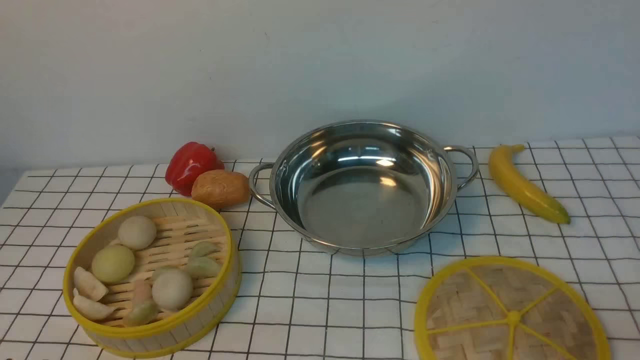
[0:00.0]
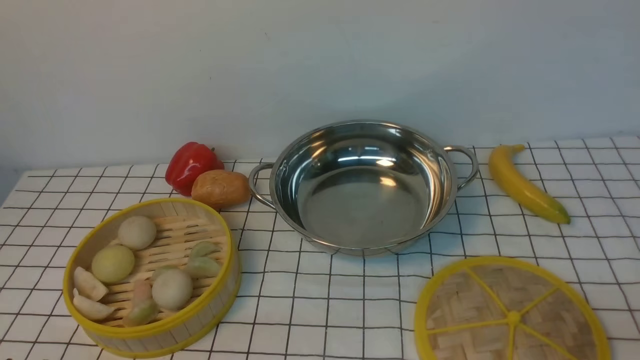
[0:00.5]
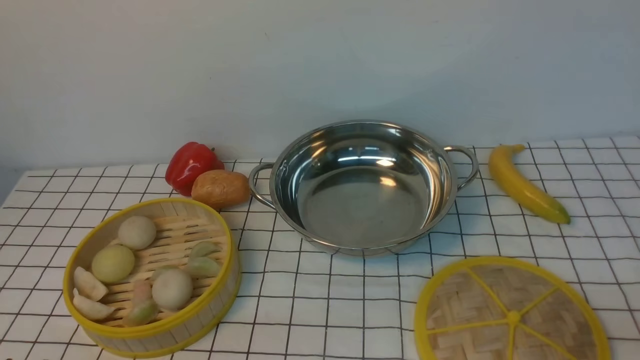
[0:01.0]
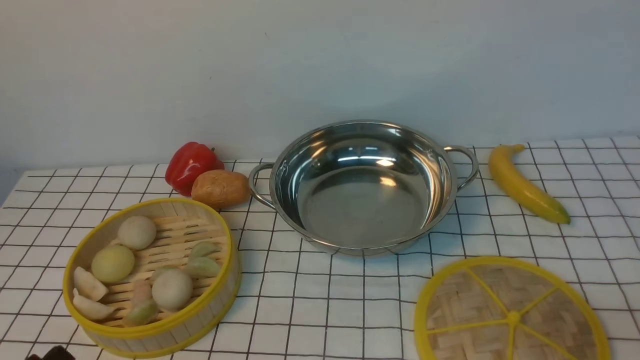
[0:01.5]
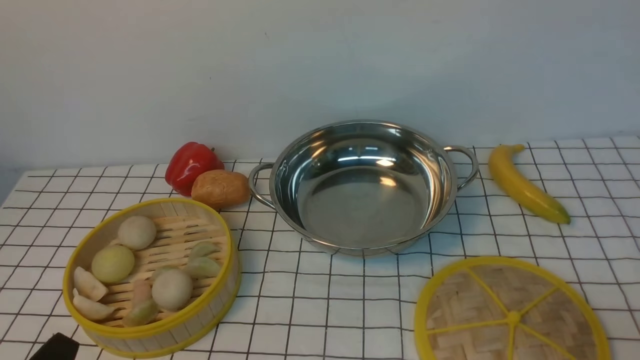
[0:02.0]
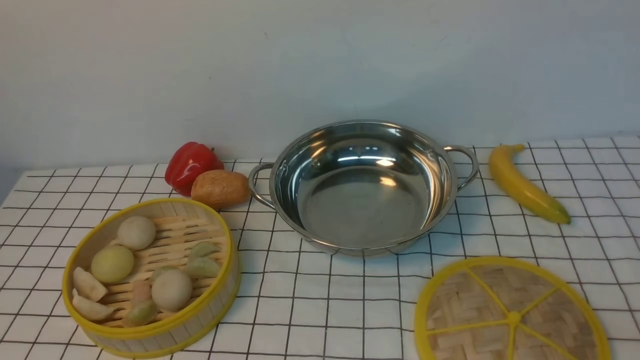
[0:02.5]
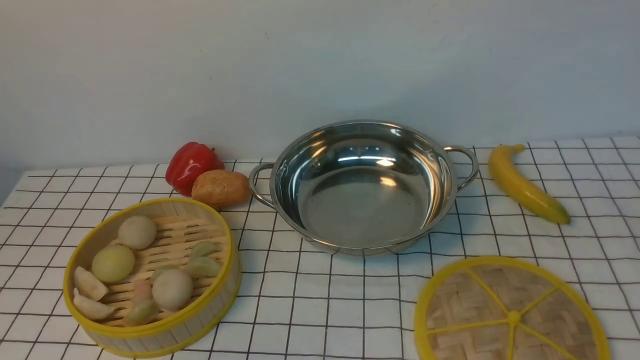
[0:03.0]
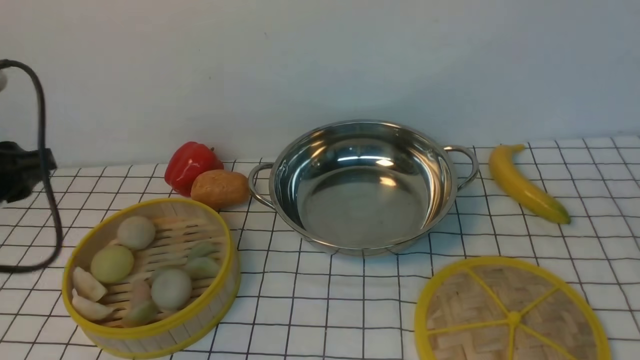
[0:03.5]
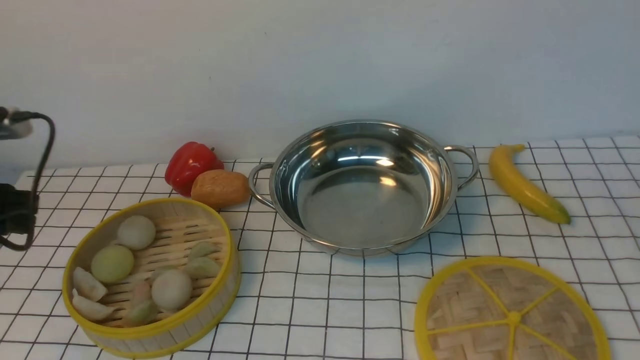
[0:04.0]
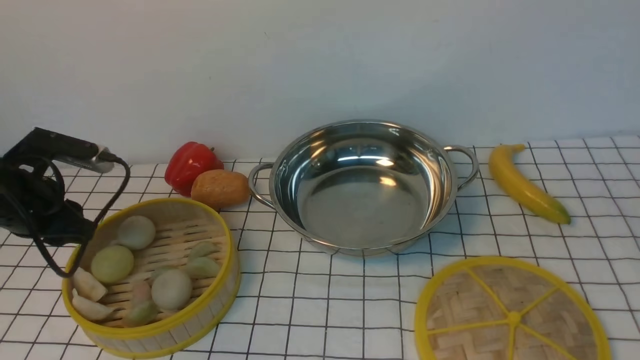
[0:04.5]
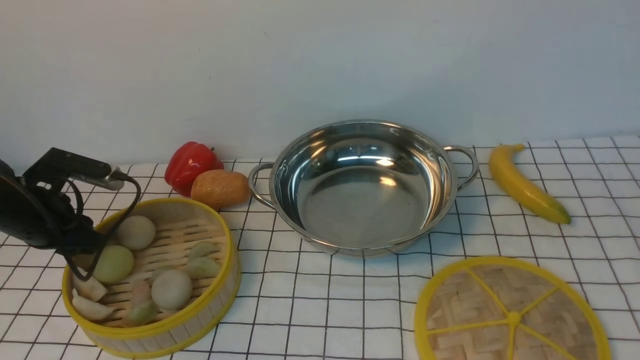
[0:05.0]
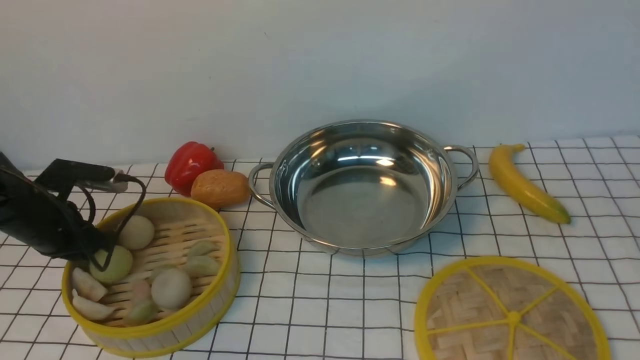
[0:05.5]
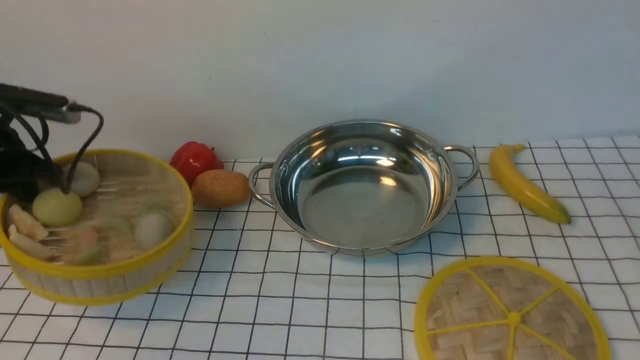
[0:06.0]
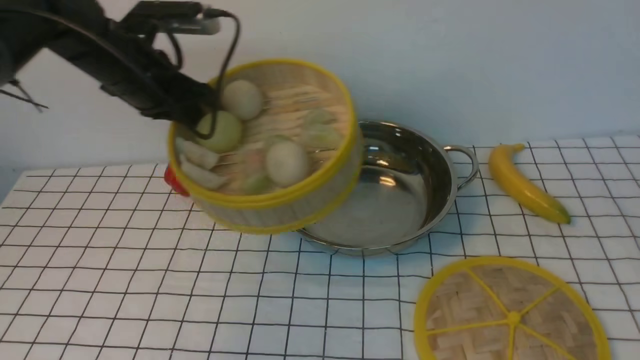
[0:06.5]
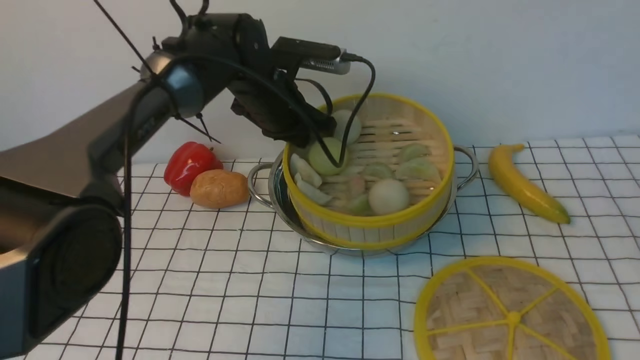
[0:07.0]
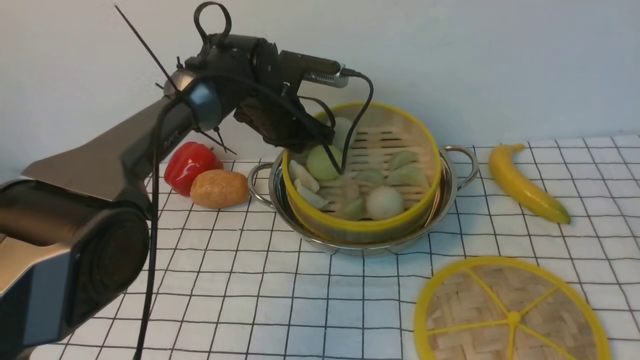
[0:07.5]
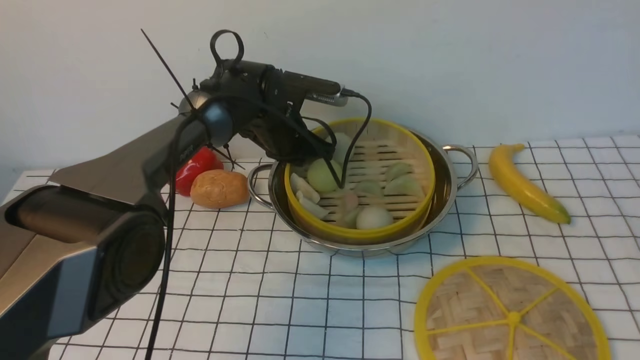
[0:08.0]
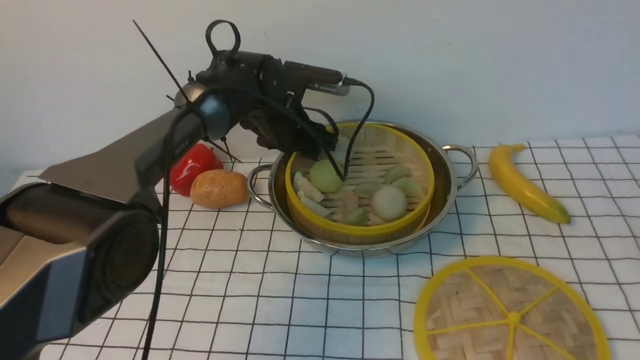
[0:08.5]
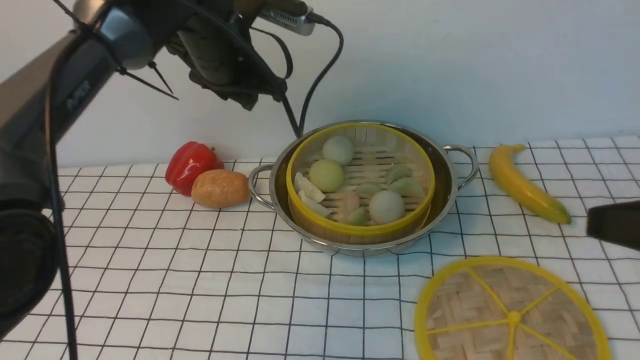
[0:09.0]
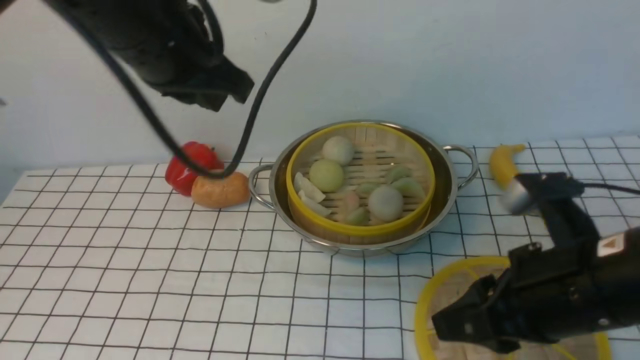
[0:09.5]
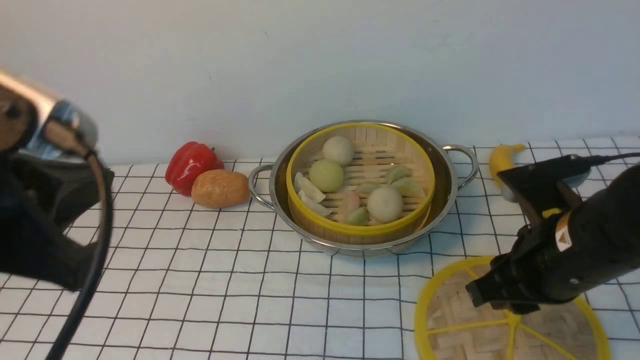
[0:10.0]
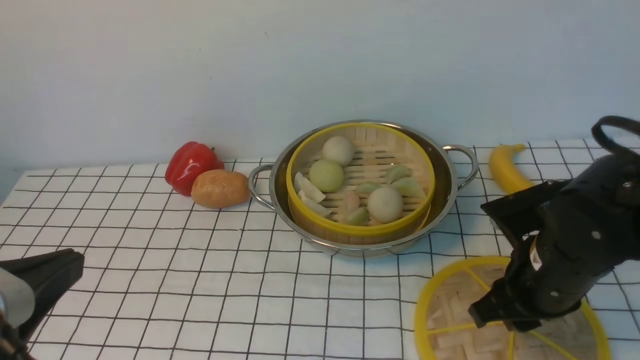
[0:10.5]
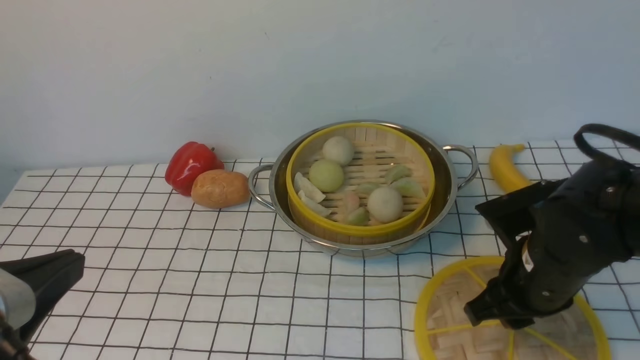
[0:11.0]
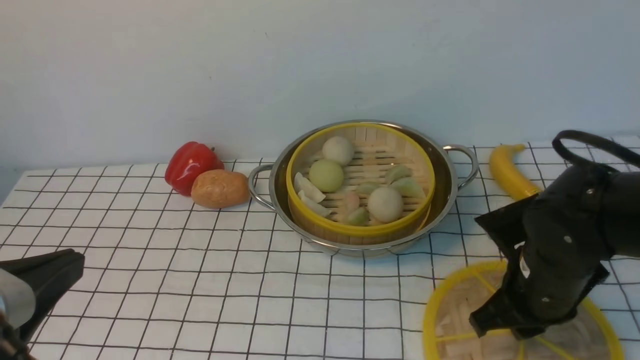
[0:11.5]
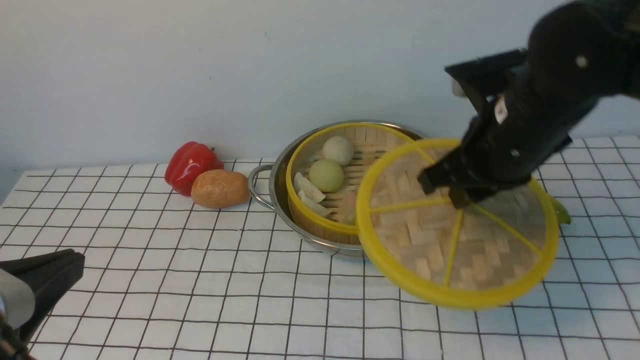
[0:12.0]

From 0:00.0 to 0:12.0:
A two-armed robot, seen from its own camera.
Task of the whole recording: place the steamer in the pot on the white tablecloth, and put the lid on the steamer.
Step, from 0:00.0 to 0:05.5: use the left arm to lift the steamer closest to it.
Step, from 0:06.0 to 0:08.5: use the left arm to put the steamer into the iron steamer pot in the middle.
Step, from 0:09.0 to 0:11.5: use the right arm to lift the lid of the steamer.
From 0:02.0 to 0:04.0: The left gripper shifts roughly 30 cm forward and to the left.
From 0:04.0 to 0:06.0: The left gripper moves forward, roughly 10 cm, goes downward and returns, roughly 10 cm each way, and closes its fingers.
From 0:06.0 to 0:08.0: The left gripper heads to the right, covering some 30 cm.
From 0:08.0 to 0:10.0: The left gripper moves backward and upward, approximately 40 cm, and opens, then closes once more; the right gripper shifts about 20 cm forward, downward and to the left.
From 0:10.0 to 0:12.0: The right gripper travels forward and upward by some 10 cm, while the left gripper moves backward, approximately 5 cm.

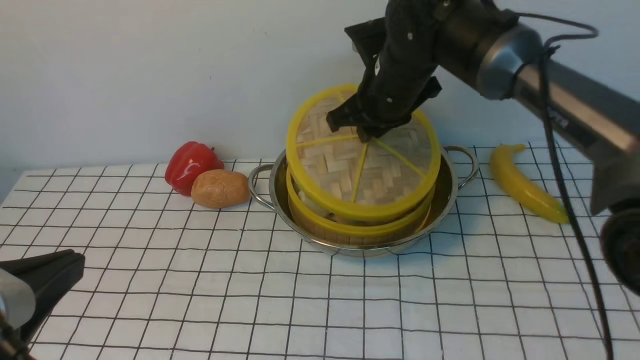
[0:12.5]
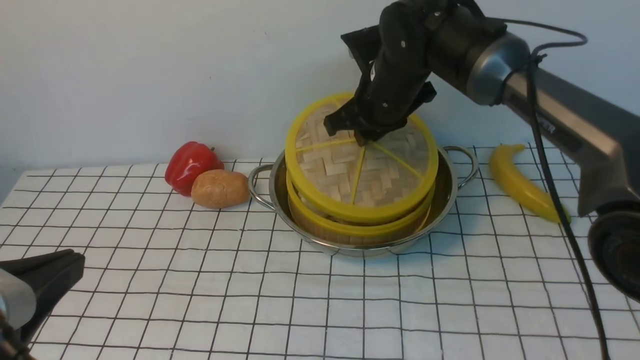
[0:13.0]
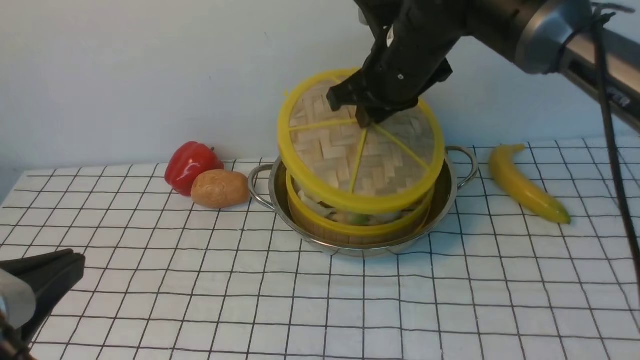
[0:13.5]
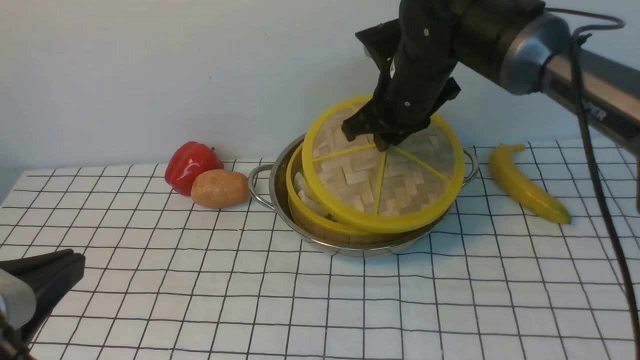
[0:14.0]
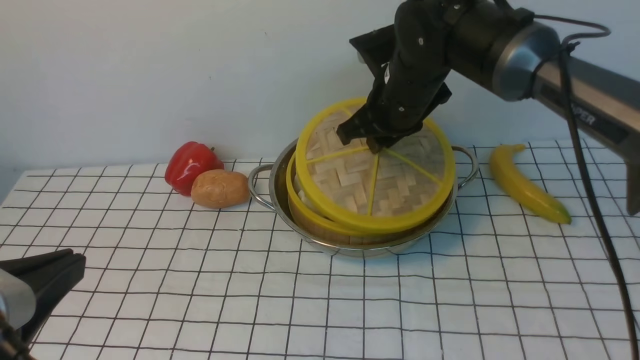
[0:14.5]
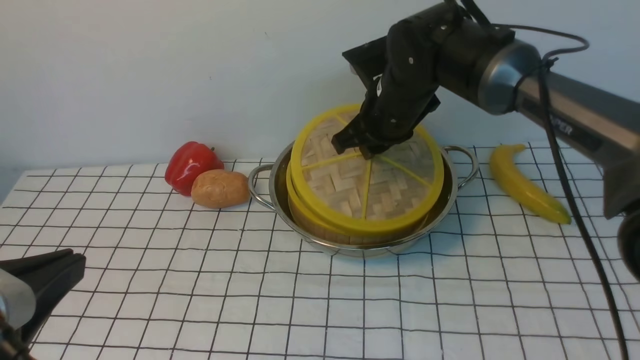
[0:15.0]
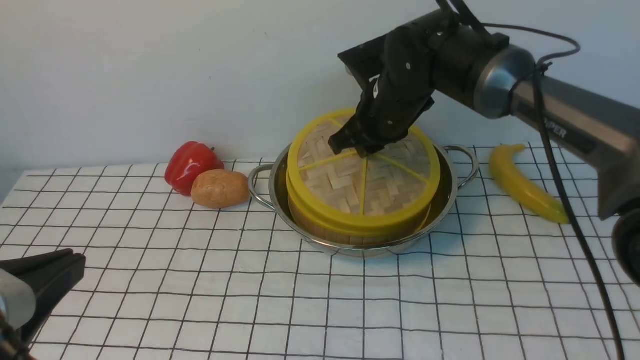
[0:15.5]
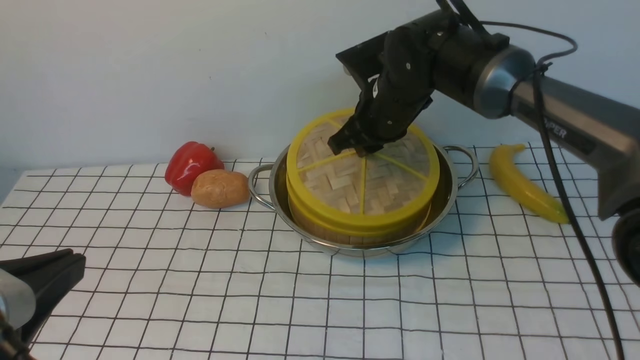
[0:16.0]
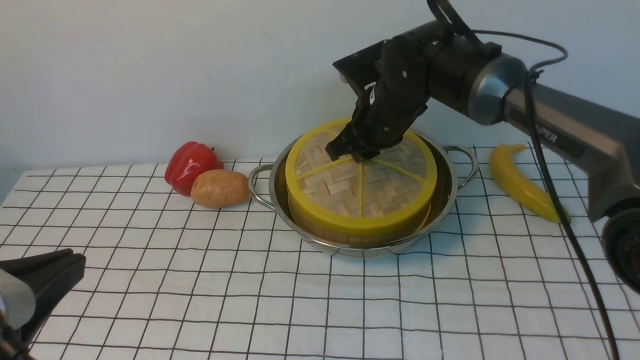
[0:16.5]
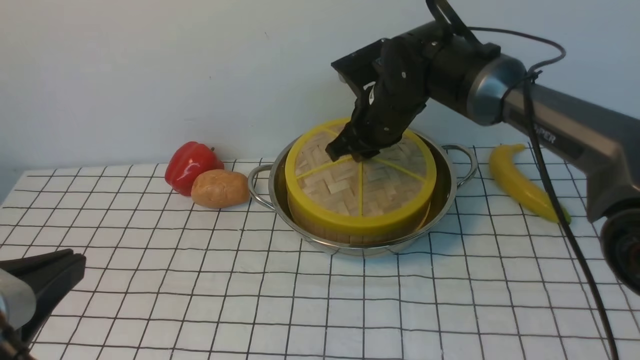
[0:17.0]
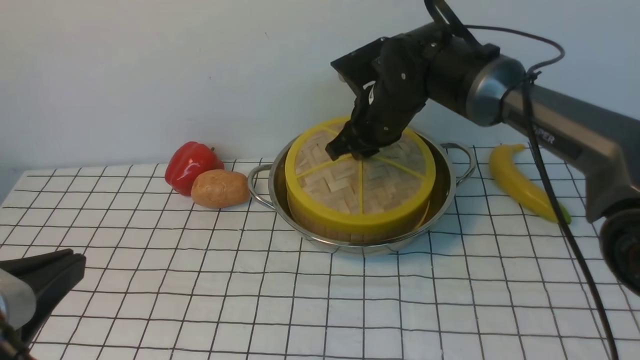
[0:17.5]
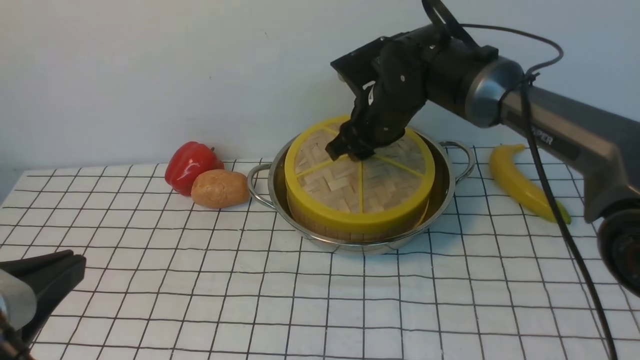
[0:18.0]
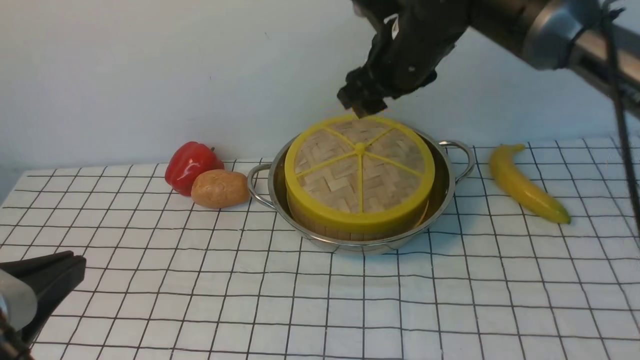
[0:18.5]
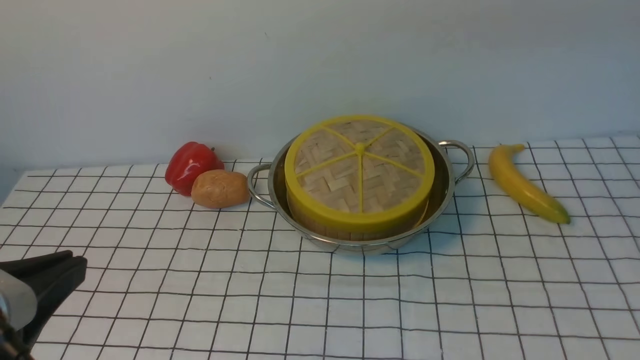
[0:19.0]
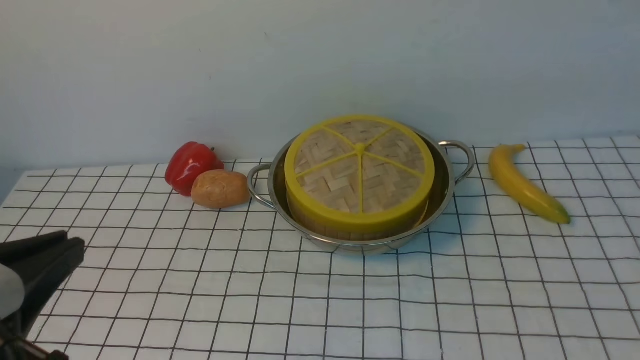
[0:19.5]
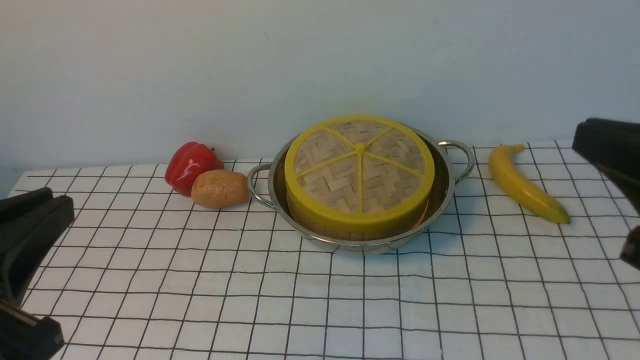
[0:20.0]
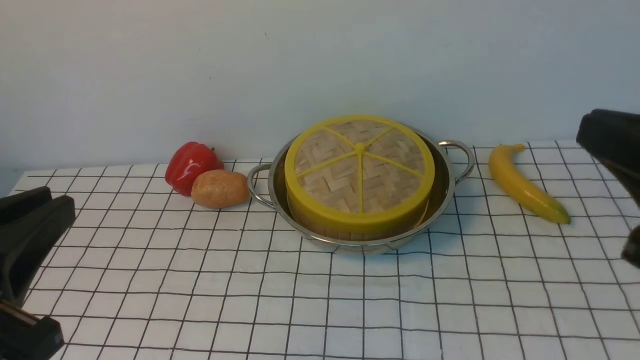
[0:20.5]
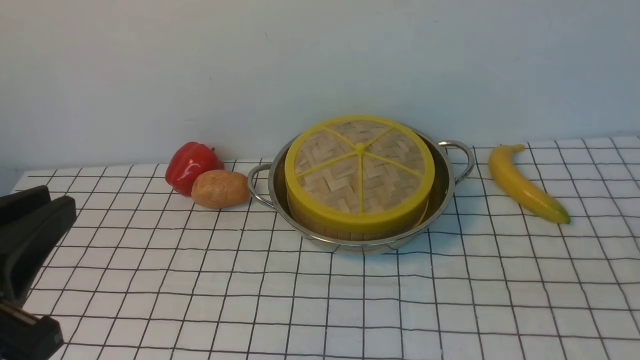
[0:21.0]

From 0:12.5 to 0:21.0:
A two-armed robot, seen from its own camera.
Task of the whole recording: place the steamer in the pot on the white tablecloth, and put the lid on the steamer.
Step, from 0:12.5 to 0:18.0: use the right arm to place the steamer lid on the steamer.
From 0:12.5 to 0:16.5: The grippers move only a little.
From 0:16.5 to 0:19.0: The right gripper is displaced upward and backward by some 30 cm, and opens and closes again.
